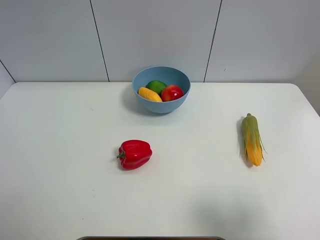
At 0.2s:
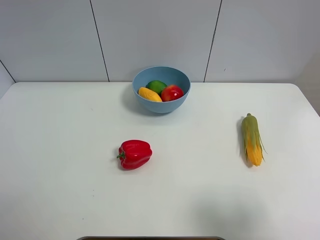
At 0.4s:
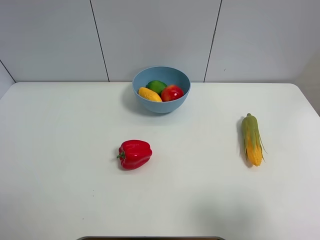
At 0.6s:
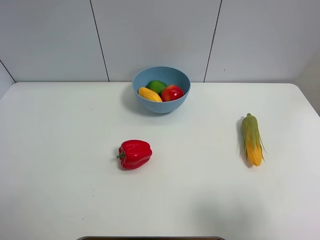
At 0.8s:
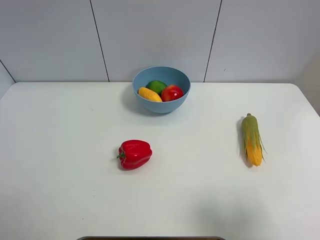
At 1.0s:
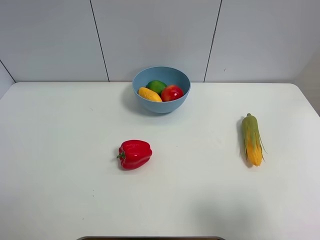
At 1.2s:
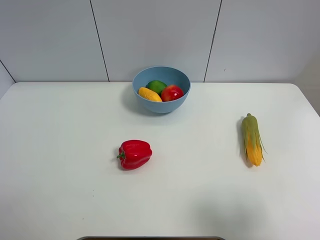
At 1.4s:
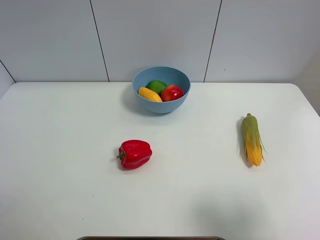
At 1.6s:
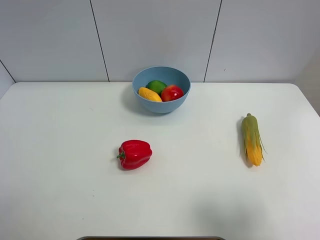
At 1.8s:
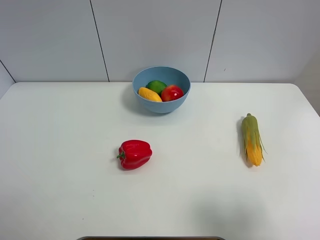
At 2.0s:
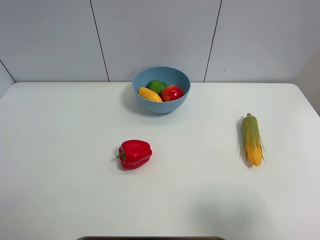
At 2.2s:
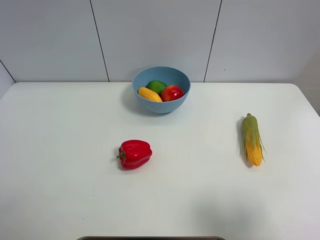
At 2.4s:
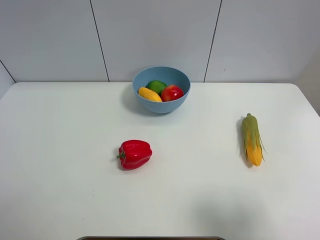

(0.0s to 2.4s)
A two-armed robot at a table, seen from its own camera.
Task of the whole recording: Put the three fruits on the table into a bowl.
1.2s - 2.4s: Both grippers stay about where they are.
